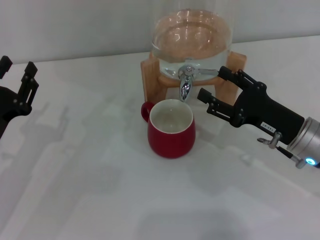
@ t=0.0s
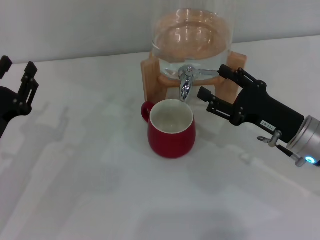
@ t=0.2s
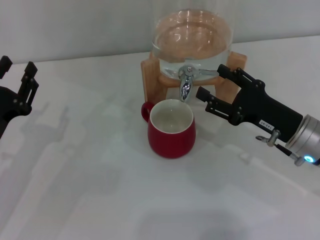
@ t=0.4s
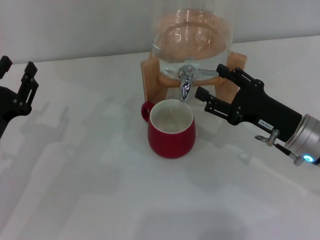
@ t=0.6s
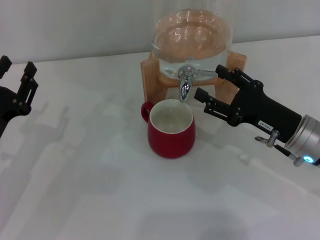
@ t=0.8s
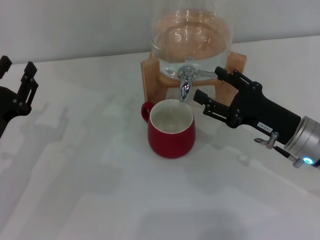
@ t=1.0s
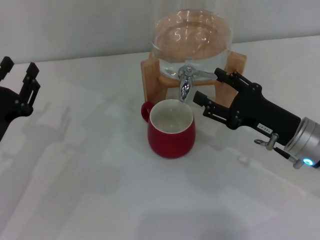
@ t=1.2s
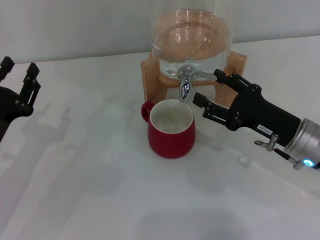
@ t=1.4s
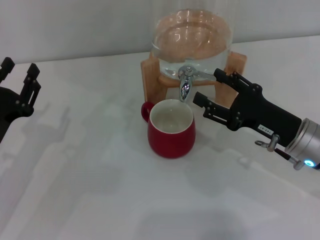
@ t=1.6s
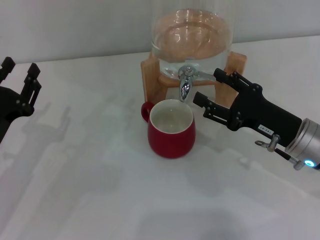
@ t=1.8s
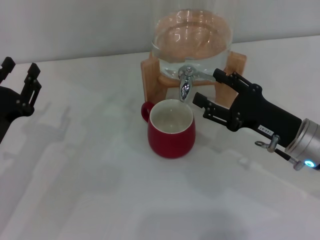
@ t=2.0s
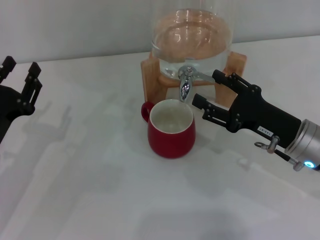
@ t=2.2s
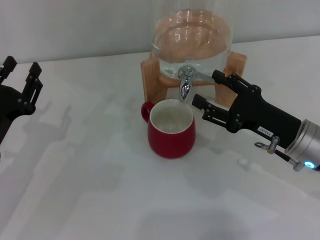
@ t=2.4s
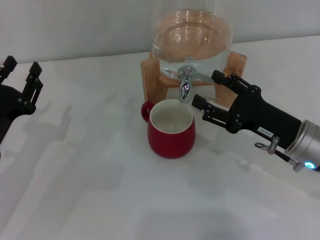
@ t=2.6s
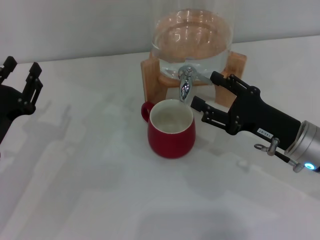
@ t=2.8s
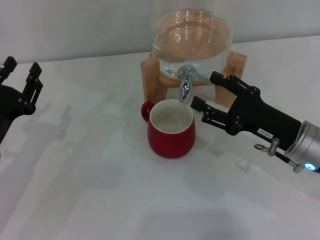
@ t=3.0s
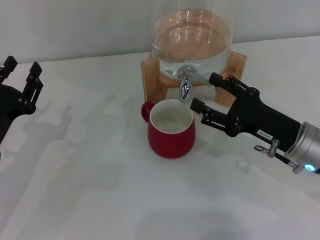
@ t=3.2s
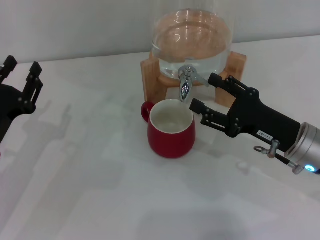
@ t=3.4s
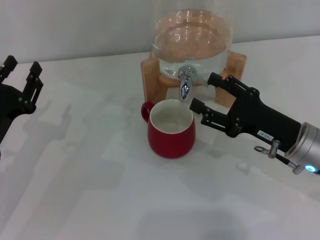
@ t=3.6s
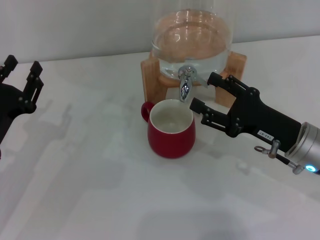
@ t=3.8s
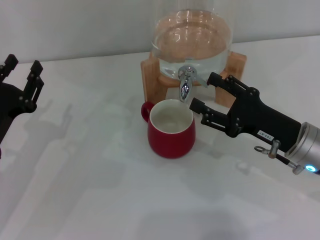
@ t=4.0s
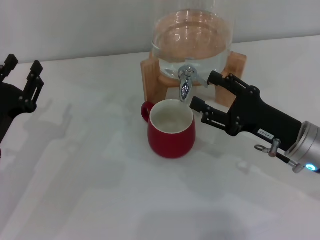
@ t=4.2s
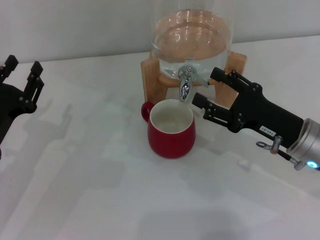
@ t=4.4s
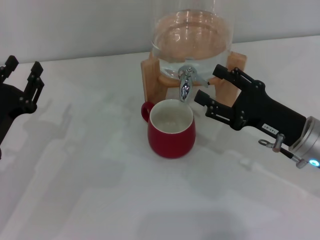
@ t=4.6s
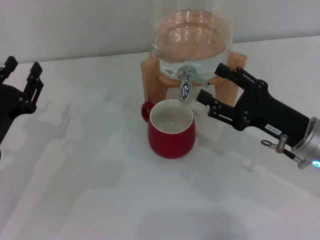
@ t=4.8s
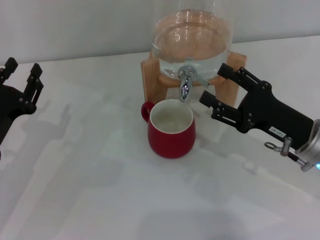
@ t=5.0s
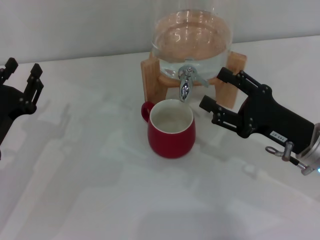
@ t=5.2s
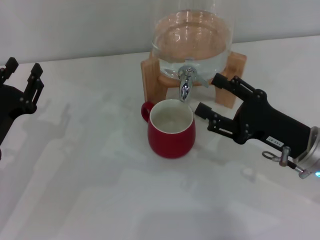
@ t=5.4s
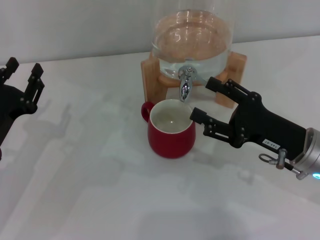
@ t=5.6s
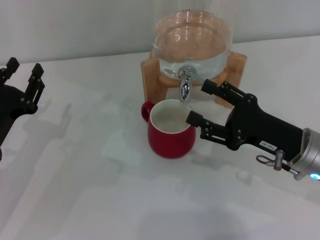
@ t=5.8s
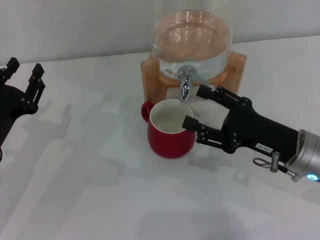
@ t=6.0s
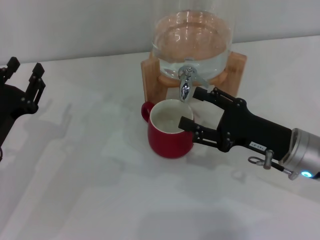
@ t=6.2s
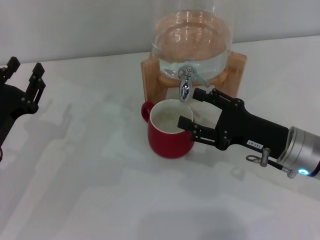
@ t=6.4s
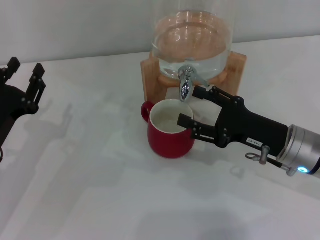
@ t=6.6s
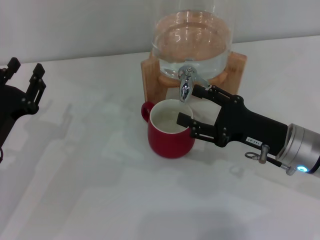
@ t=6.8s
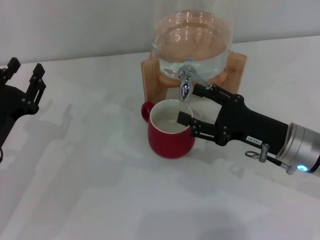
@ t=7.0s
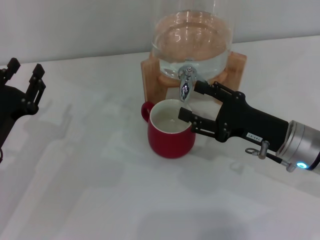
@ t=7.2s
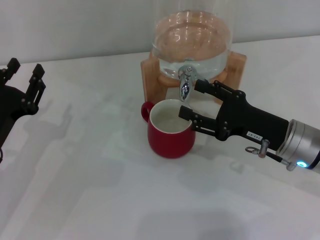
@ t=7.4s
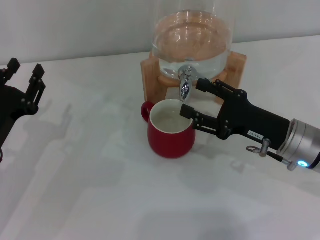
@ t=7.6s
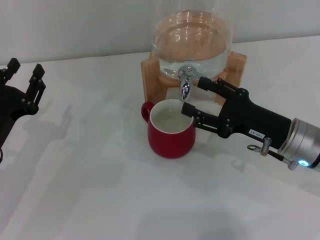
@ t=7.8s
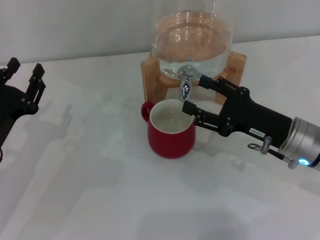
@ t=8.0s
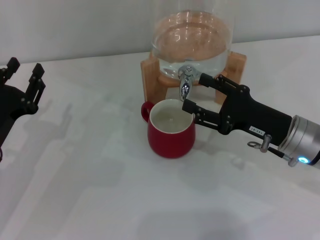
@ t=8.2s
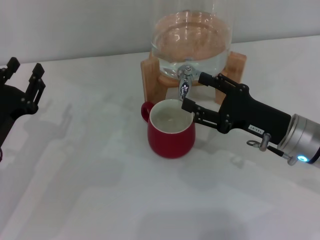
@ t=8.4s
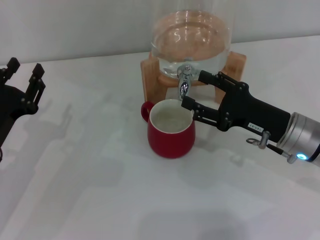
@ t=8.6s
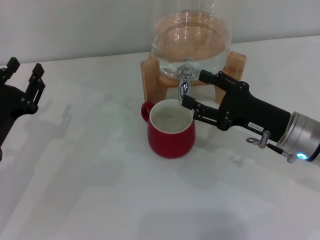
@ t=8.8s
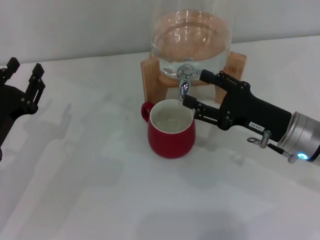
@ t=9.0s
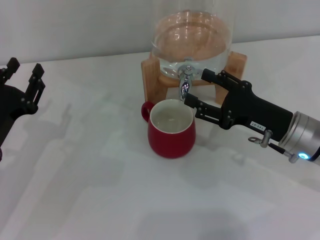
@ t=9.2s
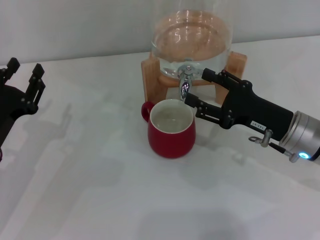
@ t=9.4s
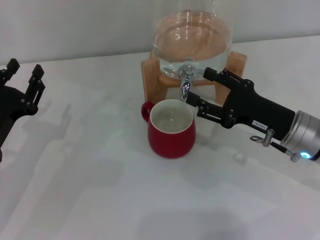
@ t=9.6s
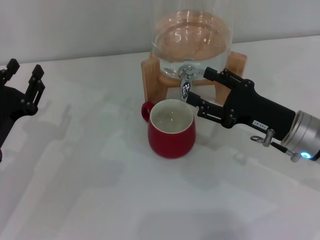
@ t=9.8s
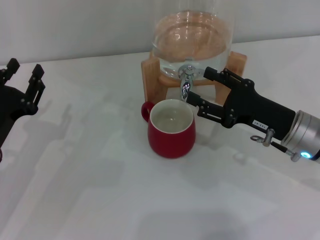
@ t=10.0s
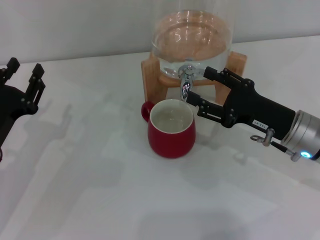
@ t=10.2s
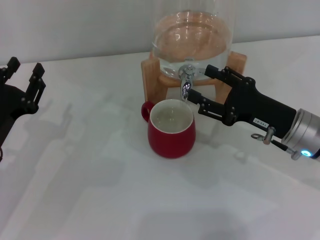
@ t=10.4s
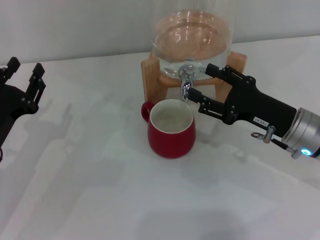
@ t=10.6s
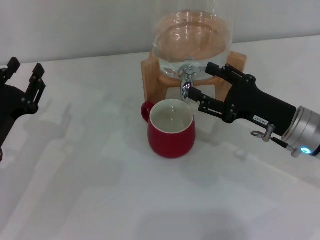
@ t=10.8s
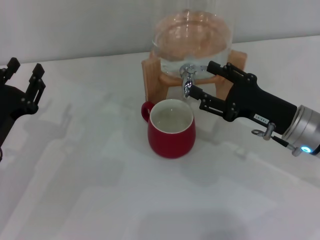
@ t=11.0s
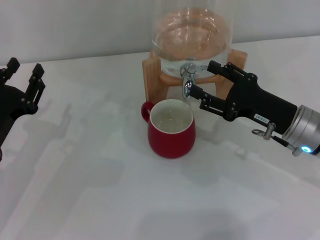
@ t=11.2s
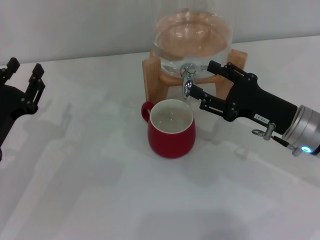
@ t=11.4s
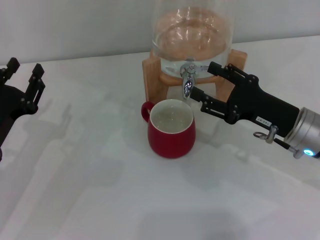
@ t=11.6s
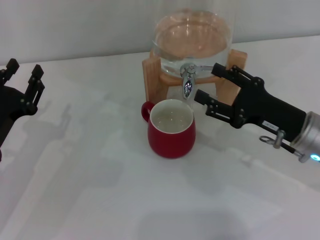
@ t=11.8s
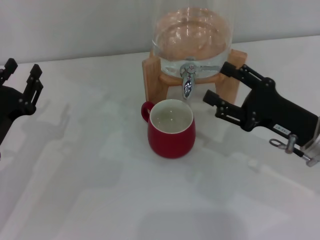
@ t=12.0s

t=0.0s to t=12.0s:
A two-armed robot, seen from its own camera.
Task of the whole recording: the left gripper pick up the red cup and place it horizontally under the faucet, the right gripper turn on the faucet to fill the cup, and then turn off the faucet.
Step, t=0.0s to t=4.2s: Open the dispenser valve and fill the cup with water with the right gripper.
Step, t=4.4s to t=11.8s: Close the dispenser valve with the right gripper.
t=0.0s to t=3.0s: Both grippers stay put.
t=3.0s to t=4.4s: The two grippers keep their place.
t=4.4s to t=7.6s: The grippers make only small movements.
t=7.6s to t=10.4s: Neither gripper changes place.
t=10.4s to t=12.0s: The grippers stay close to where they were, moving slightly.

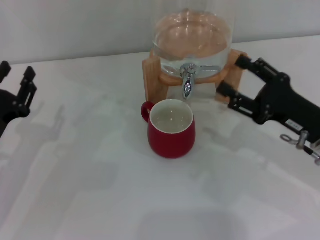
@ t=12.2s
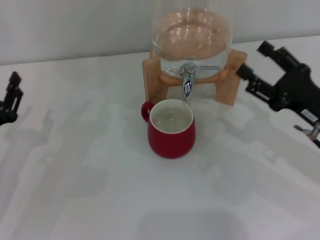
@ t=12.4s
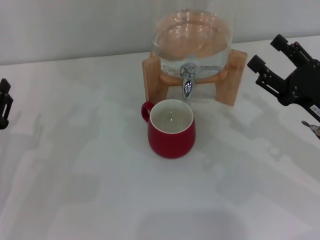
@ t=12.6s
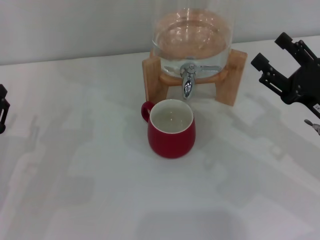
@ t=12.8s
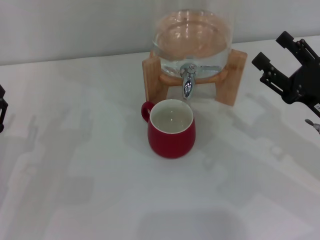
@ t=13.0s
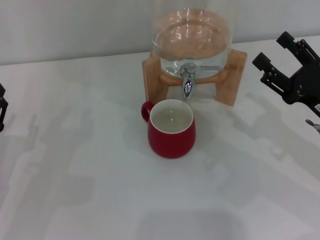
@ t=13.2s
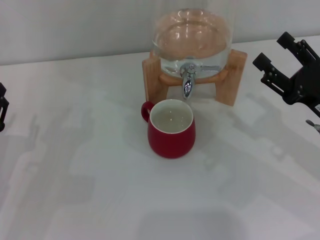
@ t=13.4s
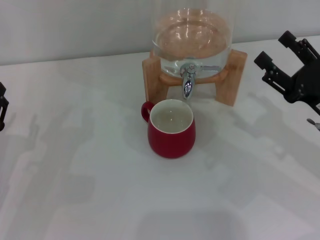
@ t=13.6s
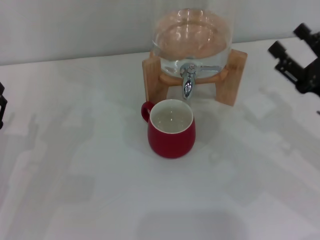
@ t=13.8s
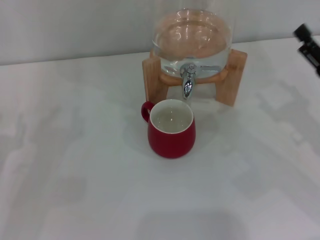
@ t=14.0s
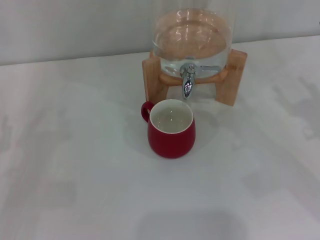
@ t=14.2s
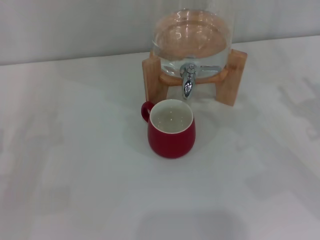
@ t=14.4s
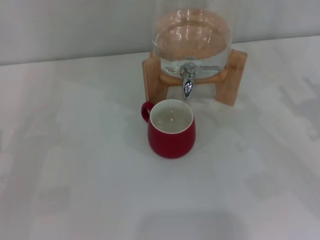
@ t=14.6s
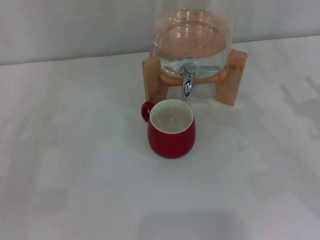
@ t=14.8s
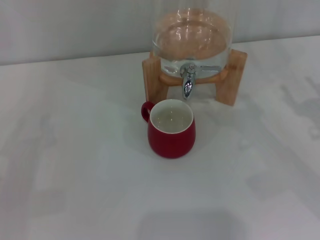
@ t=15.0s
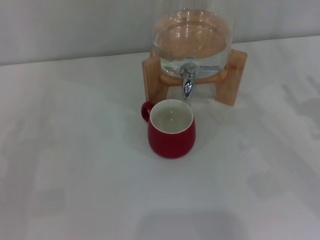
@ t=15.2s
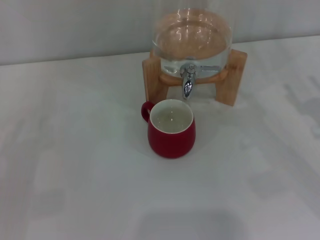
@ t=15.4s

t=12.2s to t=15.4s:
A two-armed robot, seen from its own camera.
Task of the whole recording: the left gripper pick up the red cup and place it horizontally under the faucet, the right gripper turn on the faucet to fill the cup, and then turn off the faucet.
t=12.2s to t=13.8s: The grippers move only a little.
t=13.8s to t=15.4s: There are only small adjustments of the grippers.
